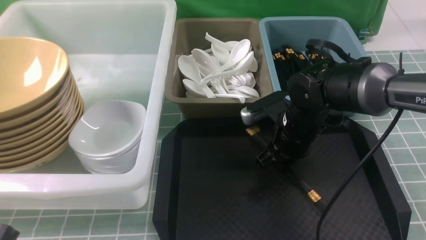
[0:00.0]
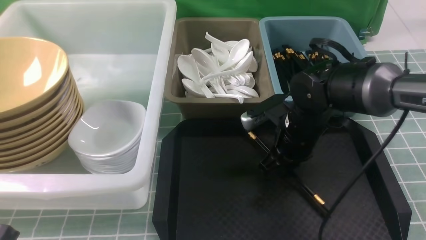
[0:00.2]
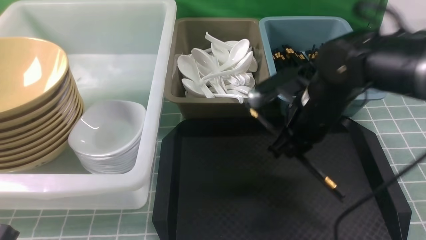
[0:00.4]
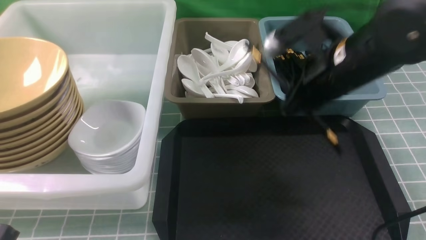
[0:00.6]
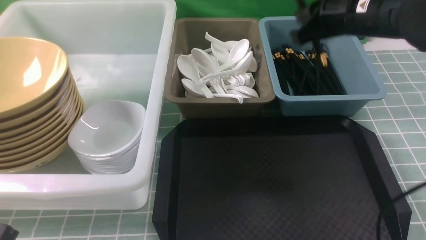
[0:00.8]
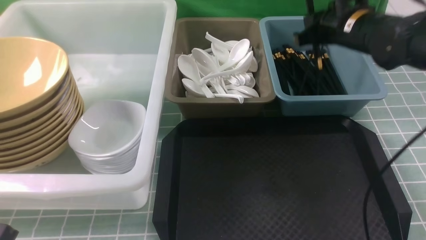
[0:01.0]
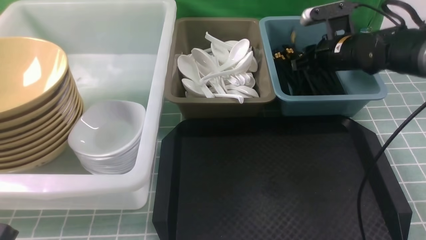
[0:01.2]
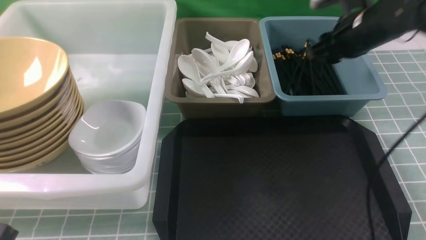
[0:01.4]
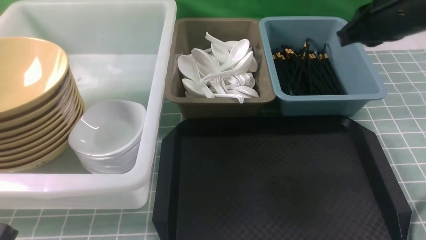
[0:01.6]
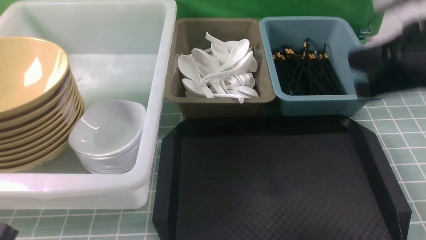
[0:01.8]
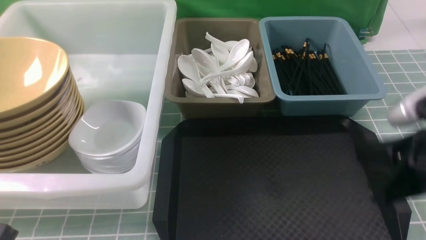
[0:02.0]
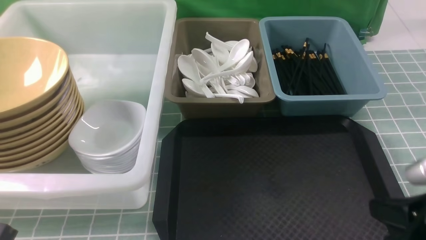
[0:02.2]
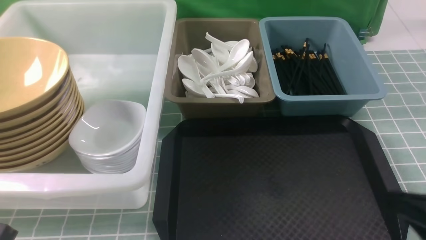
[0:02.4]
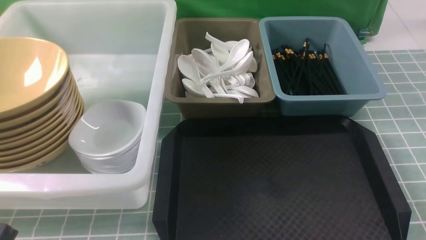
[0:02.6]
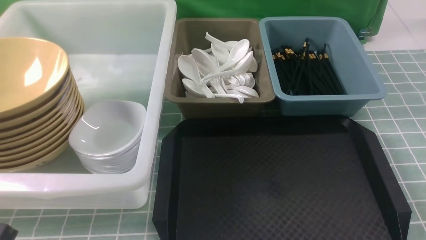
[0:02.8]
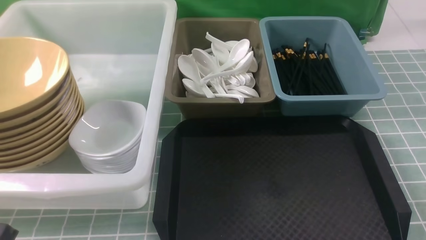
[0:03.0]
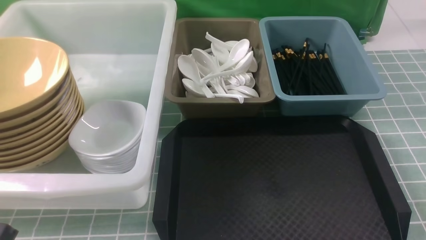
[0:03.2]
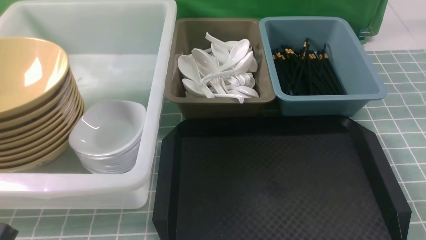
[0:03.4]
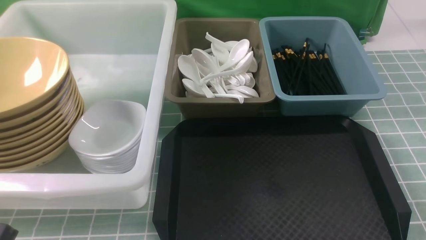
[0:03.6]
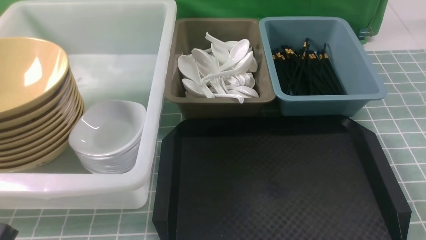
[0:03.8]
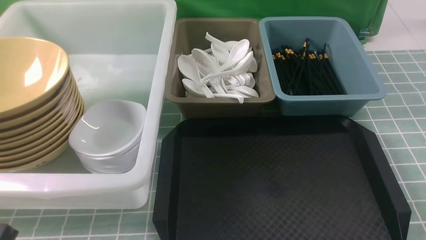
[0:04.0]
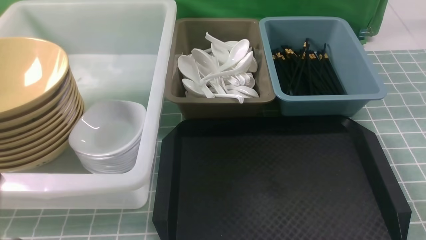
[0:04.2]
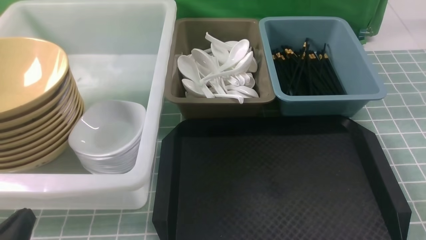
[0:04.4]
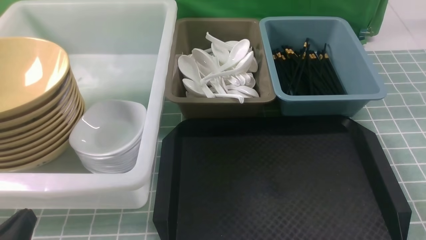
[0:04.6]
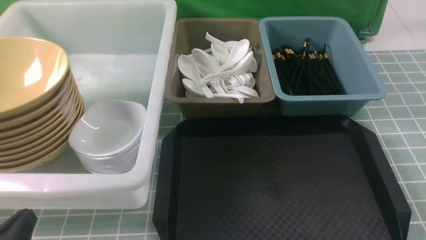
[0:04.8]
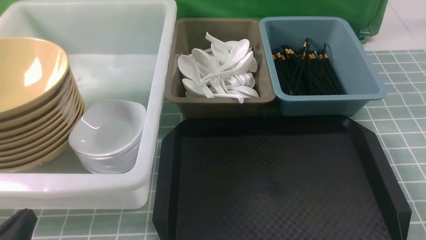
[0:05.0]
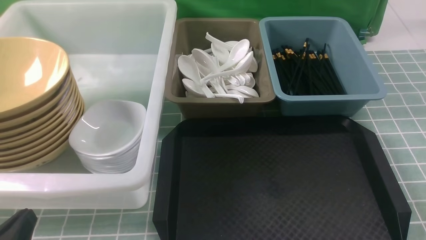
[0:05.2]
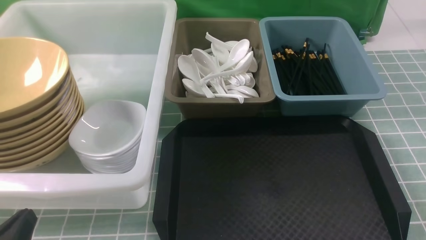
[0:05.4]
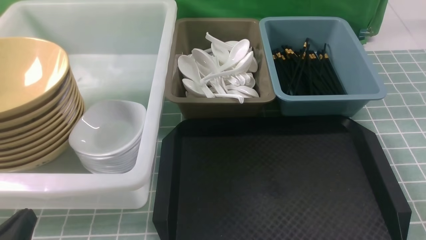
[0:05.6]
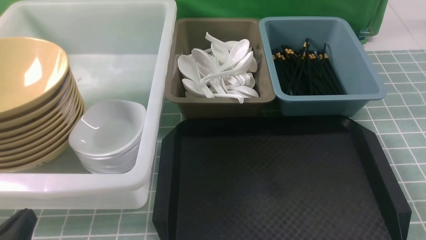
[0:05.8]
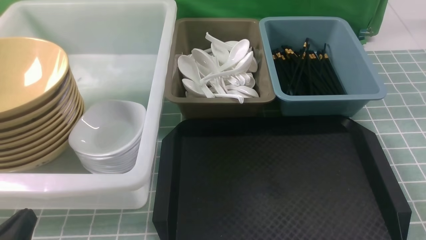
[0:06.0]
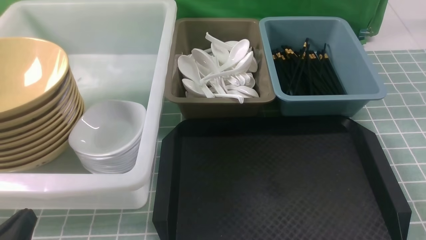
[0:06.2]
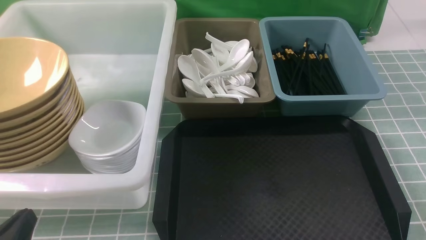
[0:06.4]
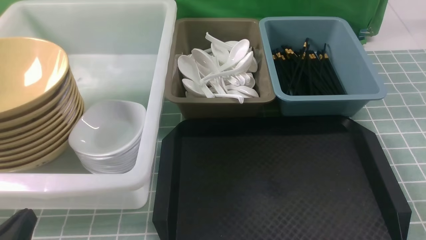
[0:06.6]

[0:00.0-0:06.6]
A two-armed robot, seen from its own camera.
Task of the whole recording: on blue table put chopsticks spoon bowls plates into blue grey white boxes.
Step, 0:00.4 to 0:01.4: use the right arm to put the chopsticks into the small storage box on the right.
0:00.0 to 0:01.6: The right gripper moves up and down over approximately 20 cm, changing direction 2 times.
0:01.6 to 0:03.2: The right gripper shifts about 30 cm backward and downward.
0:03.2 to 0:05.0: The left gripper moves downward, roughly 10 cm.
0:05.0 to 0:06.6: Neither gripper changes place.
